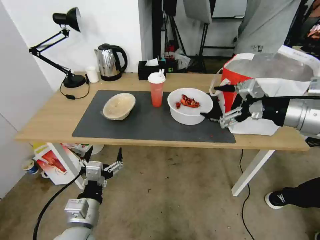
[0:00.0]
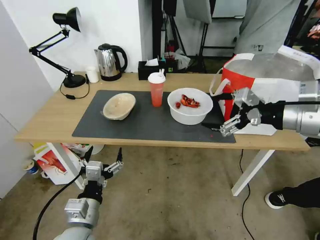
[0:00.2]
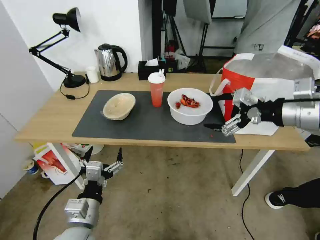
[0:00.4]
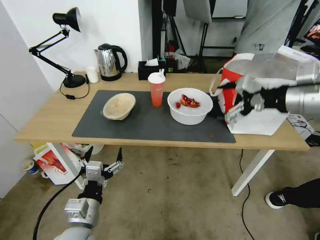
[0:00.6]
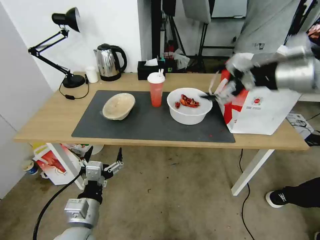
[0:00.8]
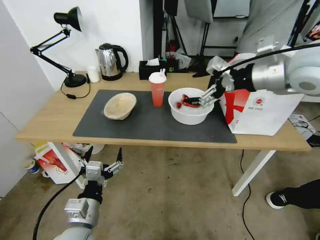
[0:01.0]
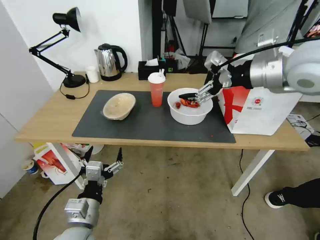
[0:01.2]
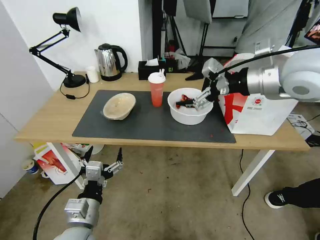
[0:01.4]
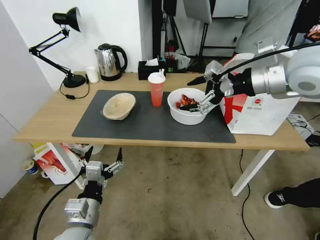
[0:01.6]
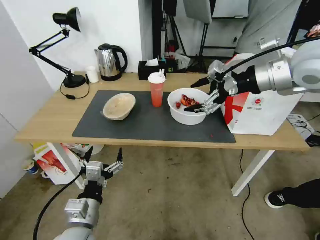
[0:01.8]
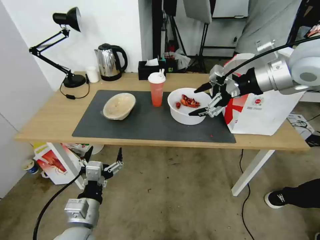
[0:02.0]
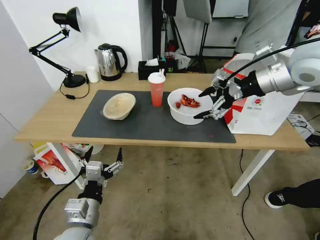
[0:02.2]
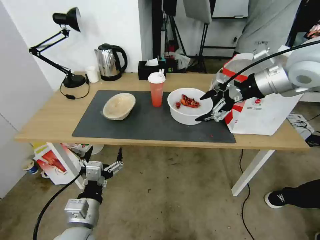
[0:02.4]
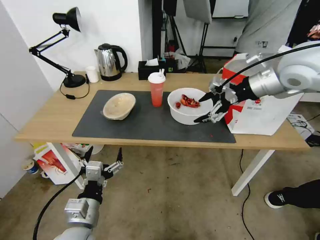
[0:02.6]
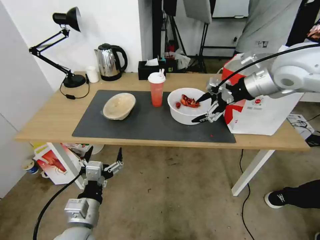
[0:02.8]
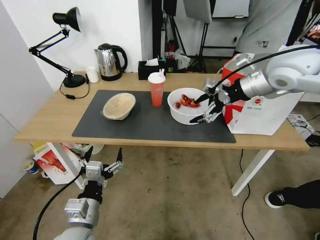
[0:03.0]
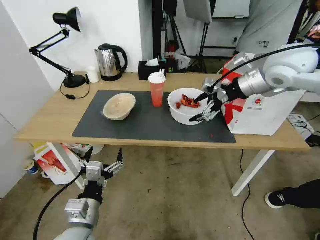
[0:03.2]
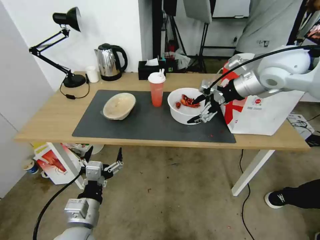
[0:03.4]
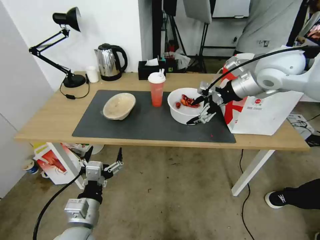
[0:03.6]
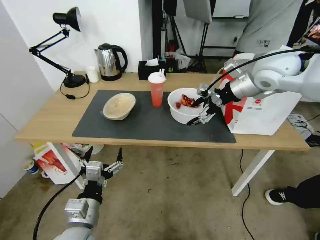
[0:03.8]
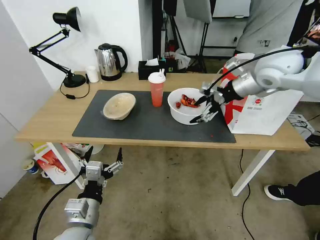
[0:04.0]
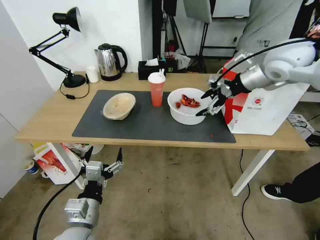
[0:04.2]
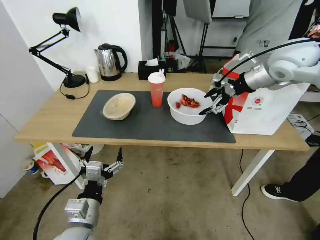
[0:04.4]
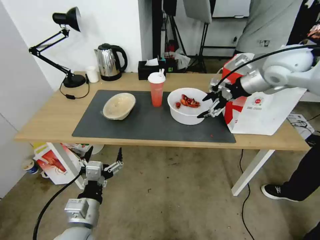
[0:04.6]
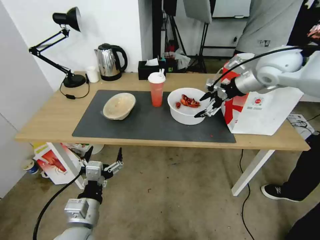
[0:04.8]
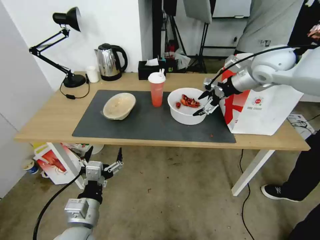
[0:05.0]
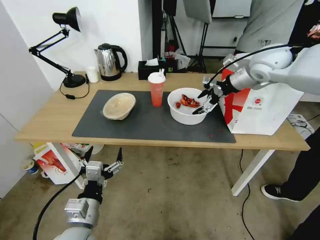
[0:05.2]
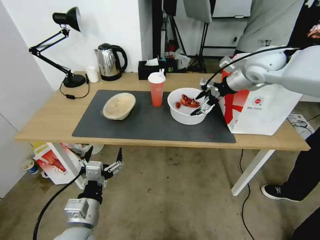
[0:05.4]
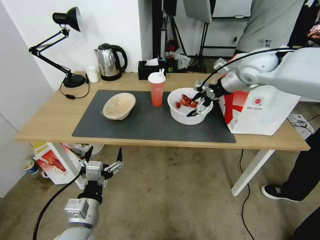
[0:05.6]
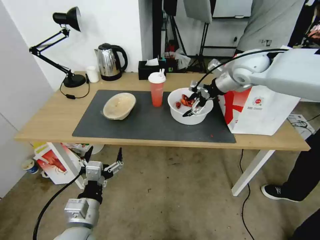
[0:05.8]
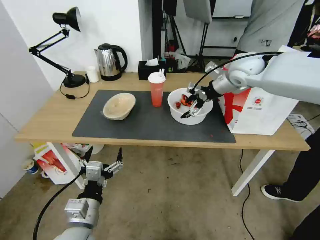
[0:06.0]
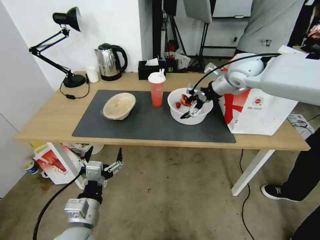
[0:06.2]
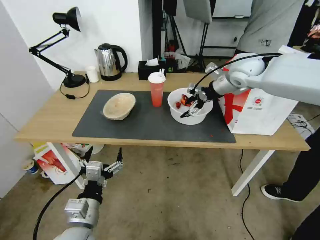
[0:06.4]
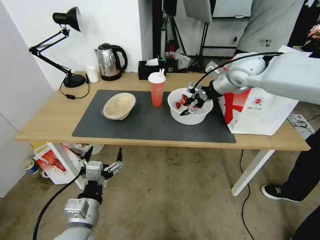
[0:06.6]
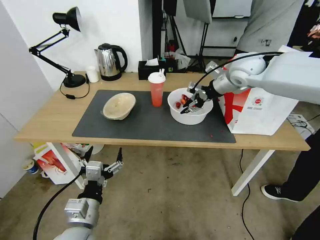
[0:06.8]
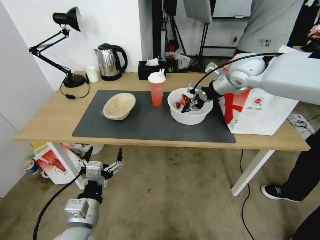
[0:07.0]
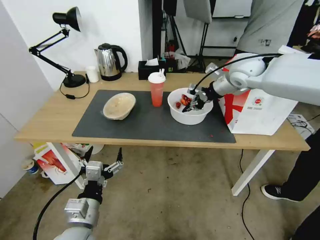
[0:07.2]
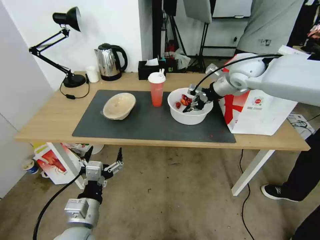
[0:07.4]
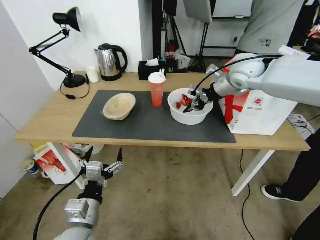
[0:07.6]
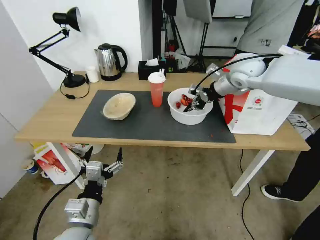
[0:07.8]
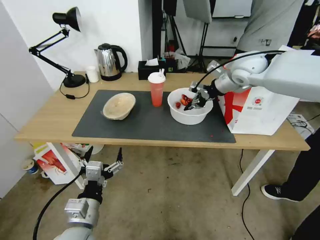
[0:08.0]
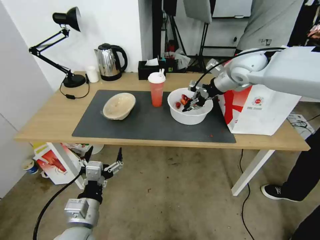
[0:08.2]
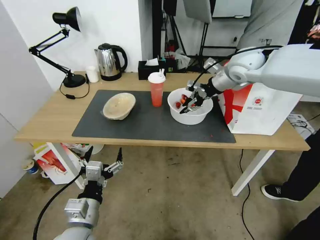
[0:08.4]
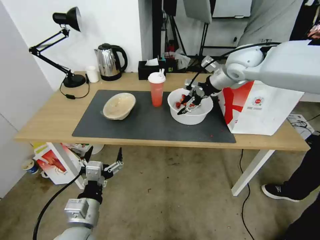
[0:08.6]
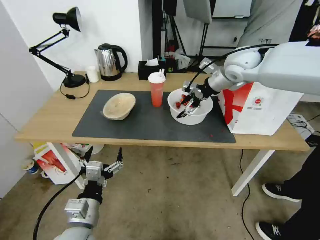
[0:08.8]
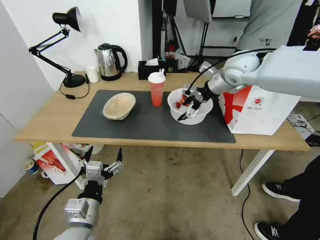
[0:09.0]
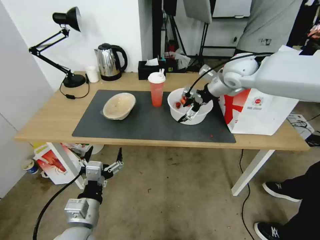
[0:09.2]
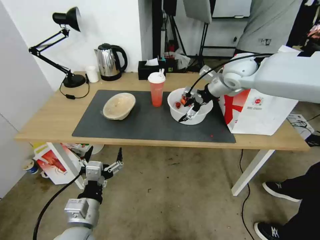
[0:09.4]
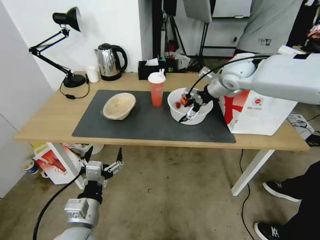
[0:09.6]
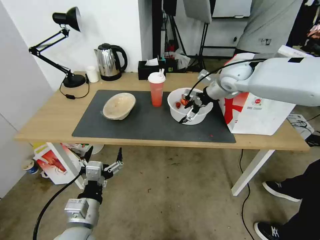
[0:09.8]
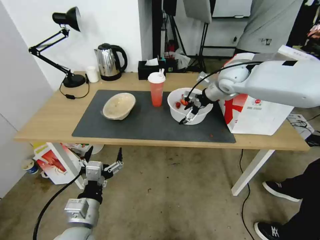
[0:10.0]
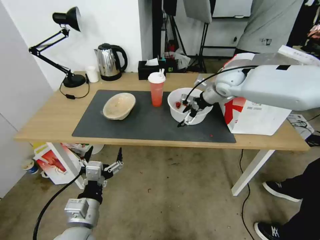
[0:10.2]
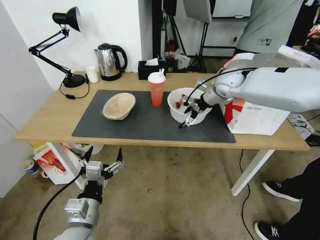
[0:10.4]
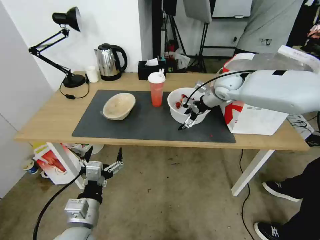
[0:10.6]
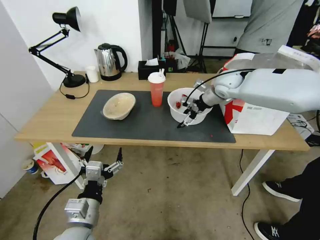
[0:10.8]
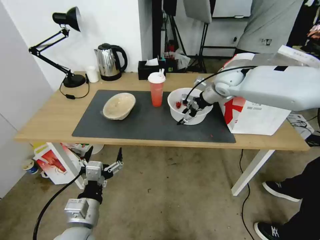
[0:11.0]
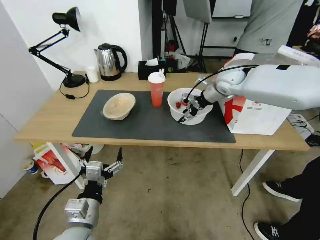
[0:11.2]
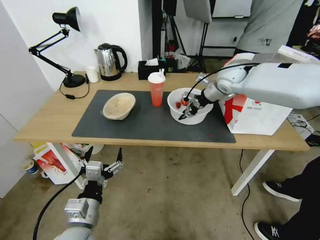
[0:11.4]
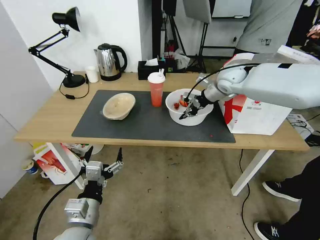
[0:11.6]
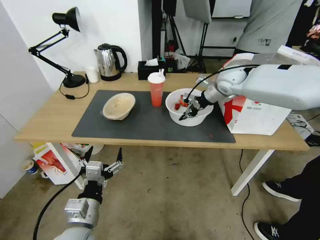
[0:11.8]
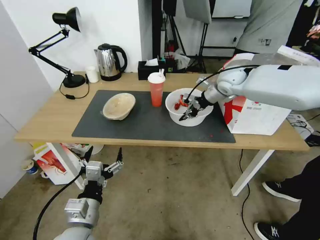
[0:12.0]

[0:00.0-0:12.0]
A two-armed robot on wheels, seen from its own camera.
Task of the whole recording: Pick up the trash from the table and place it into the takeout bag.
0:00.0 to 0:01.6: The right gripper heads forward, upward and to the left, covering some 10 cm.
0:01.6 to 0:03.0: The right gripper goes about 5 cm forward.
0:03.0 to 0:04.4: There are only small adjustments of the grippers.
0:04.4 to 0:06.0: The right gripper moves forward, to the left and downward, roughly 10 cm.
0:06.0 to 0:07.6: The right gripper closes its fingers.
0:07.6 to 0:09.0: The right gripper opens its fingers.
0:09.0 to 0:10.4: The right gripper heads downward, covering roughly 10 cm.
0:10.4 to 0:12.0: The right gripper closes up.

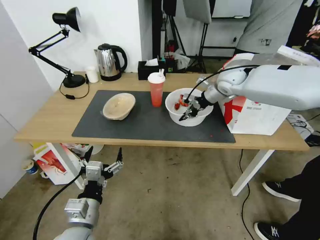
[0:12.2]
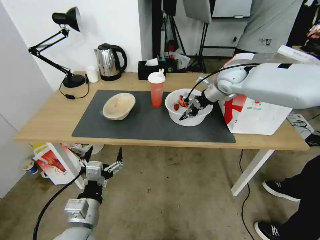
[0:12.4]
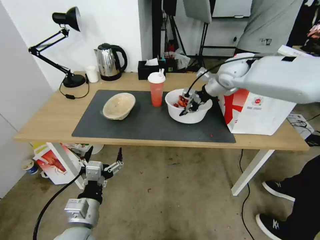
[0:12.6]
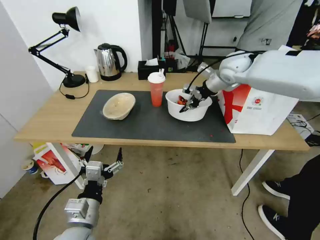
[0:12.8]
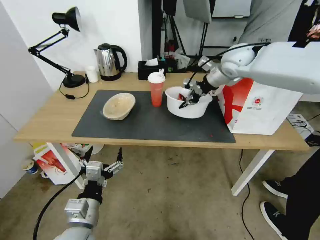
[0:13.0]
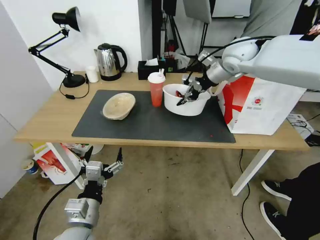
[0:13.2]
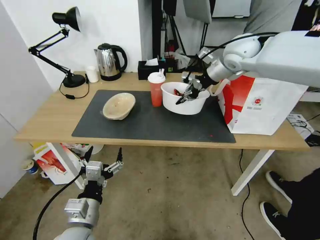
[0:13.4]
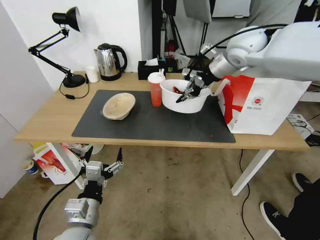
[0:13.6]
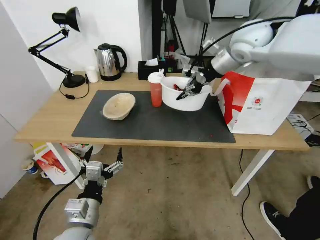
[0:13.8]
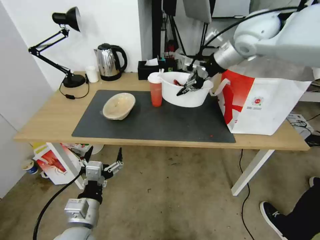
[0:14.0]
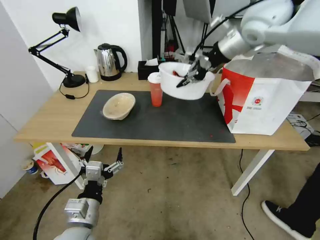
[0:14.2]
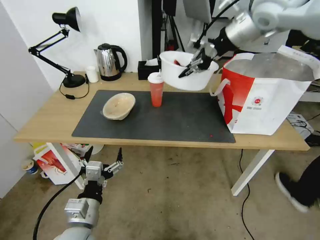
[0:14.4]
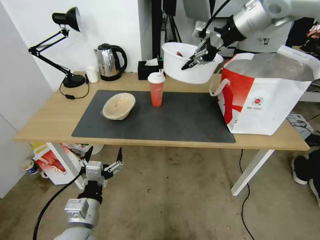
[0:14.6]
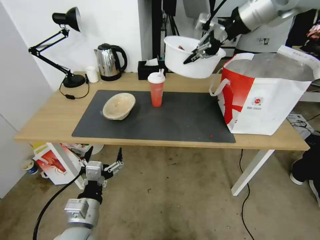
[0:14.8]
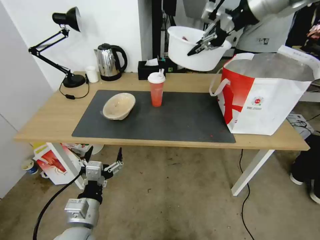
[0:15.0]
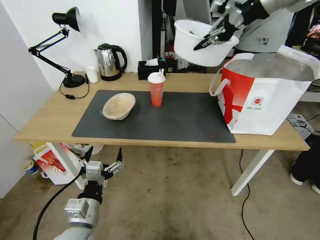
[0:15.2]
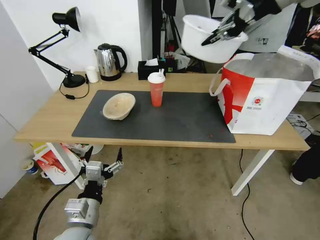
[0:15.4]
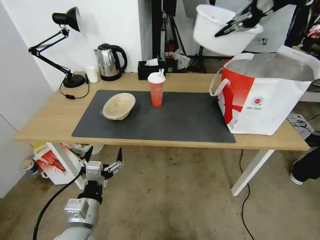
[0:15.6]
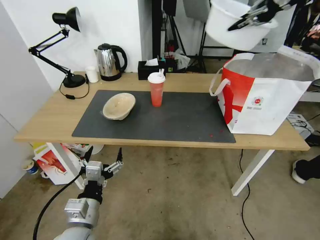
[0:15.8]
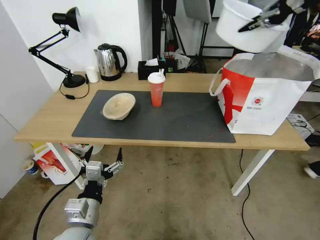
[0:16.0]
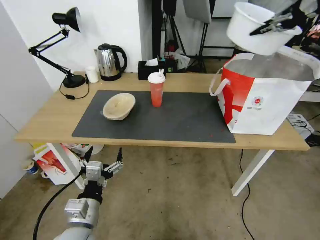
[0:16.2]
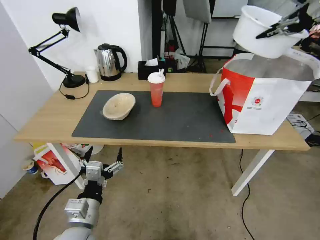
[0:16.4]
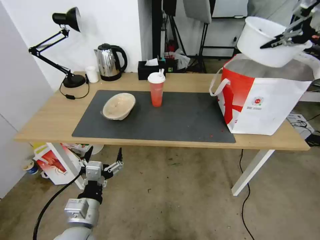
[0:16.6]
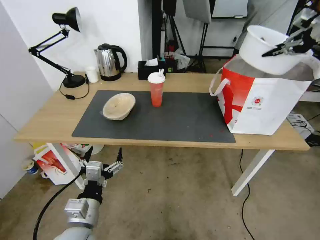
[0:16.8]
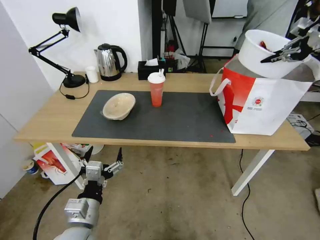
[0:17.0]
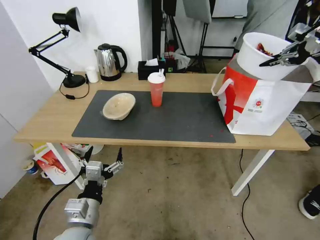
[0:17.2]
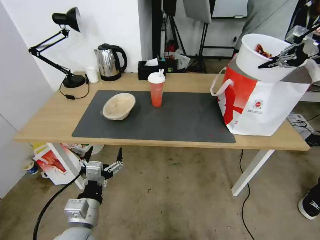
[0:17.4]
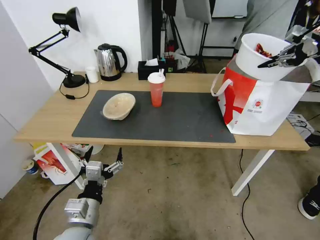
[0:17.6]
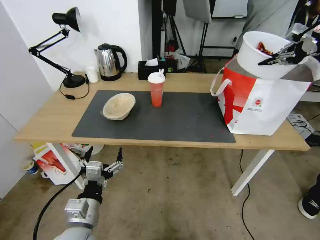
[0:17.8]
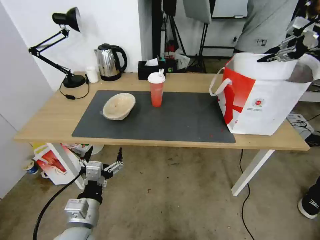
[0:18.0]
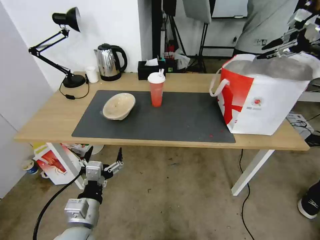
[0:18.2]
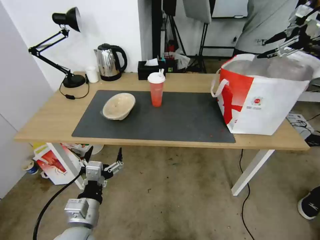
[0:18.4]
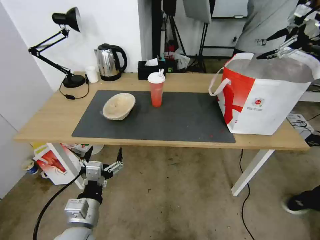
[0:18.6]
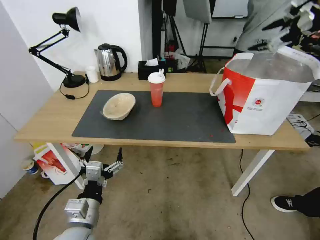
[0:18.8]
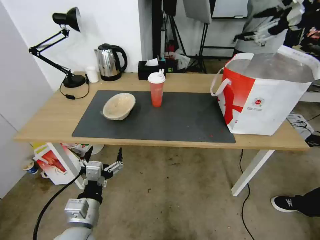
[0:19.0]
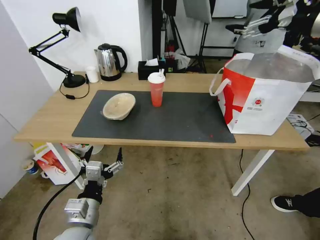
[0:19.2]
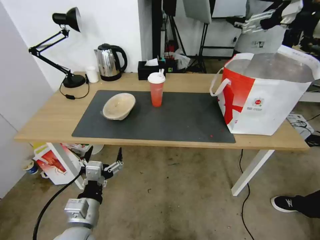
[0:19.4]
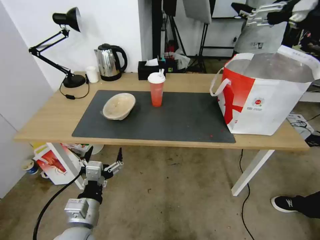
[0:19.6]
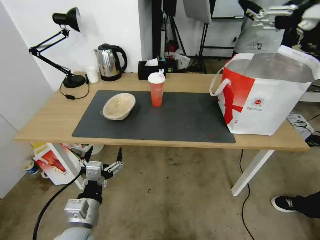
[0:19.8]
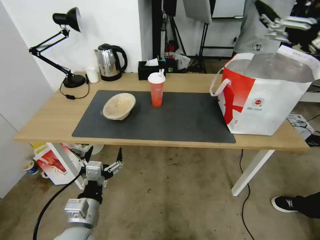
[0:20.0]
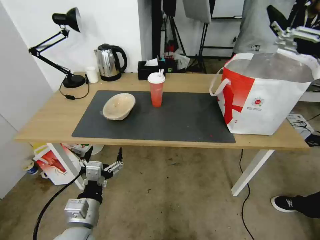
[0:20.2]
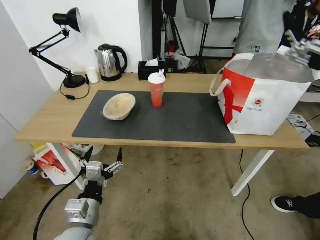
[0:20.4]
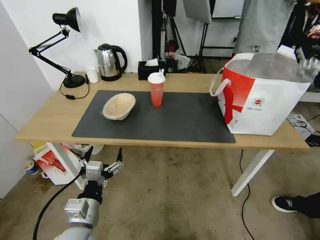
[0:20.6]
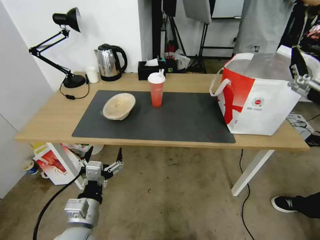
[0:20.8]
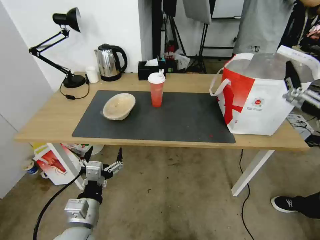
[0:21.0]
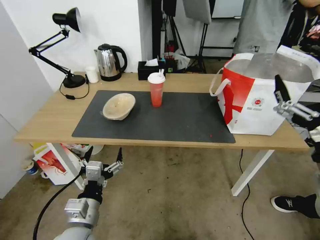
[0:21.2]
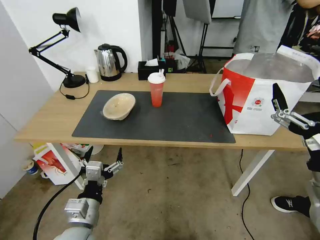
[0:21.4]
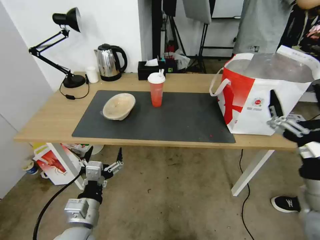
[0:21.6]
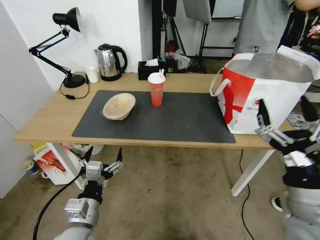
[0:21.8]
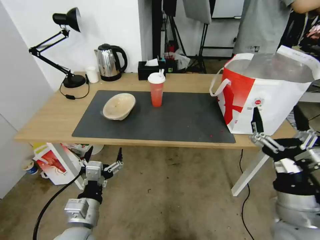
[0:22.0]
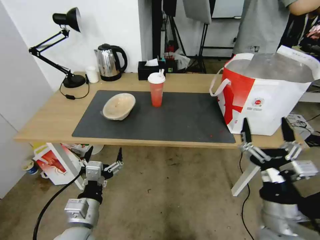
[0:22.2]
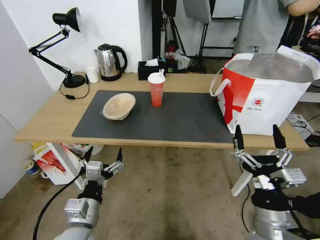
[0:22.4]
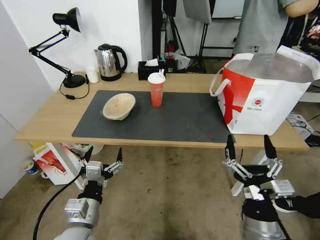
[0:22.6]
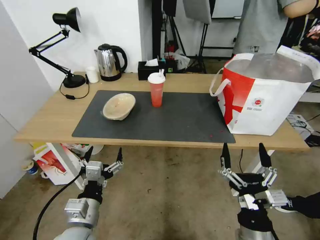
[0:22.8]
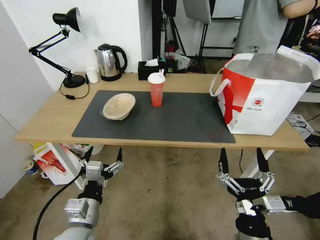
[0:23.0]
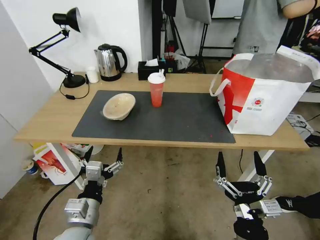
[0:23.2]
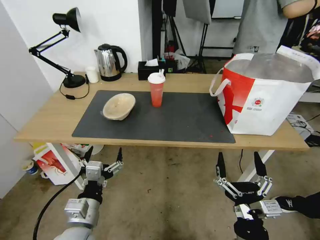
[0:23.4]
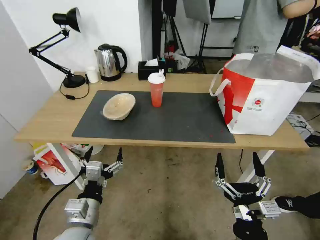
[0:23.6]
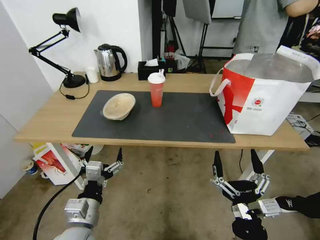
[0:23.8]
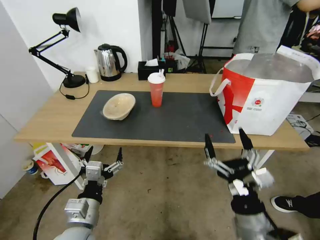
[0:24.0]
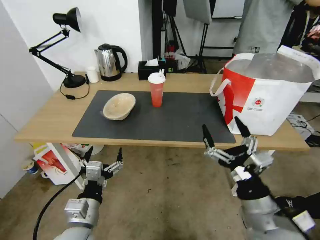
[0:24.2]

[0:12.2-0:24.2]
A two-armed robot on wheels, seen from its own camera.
Task of the whole recording: Pick up the trash from the table and place it into the takeout bag.
0:12.2 to 0:13.8: The right gripper shifts some 15 cm upward.
0:13.8 to 0:15.2: The right gripper travels upward by approximately 15 cm.
0:15.2 to 0:16.6: The right gripper shifts approximately 20 cm to the right.
0:16.6 to 0:18.2: The right gripper opens its fingers.
0:18.2 to 0:19.8: The right gripper goes some 15 cm to the left and backward, and opens.
0:19.8 to 0:21.2: The right gripper heads downward and backward, covering about 30 cm.
0:21.2 to 0:22.6: The right gripper goes roughly 20 cm downward and to the left.
0:22.6 to 0:24.2: The right gripper moves some 5 cm.
